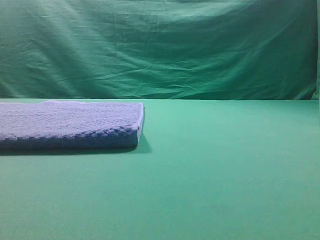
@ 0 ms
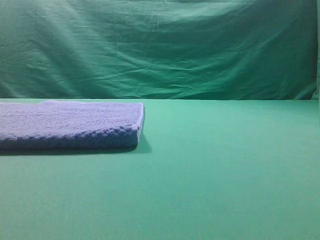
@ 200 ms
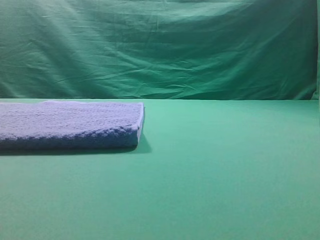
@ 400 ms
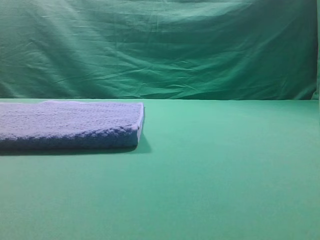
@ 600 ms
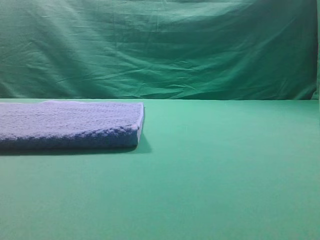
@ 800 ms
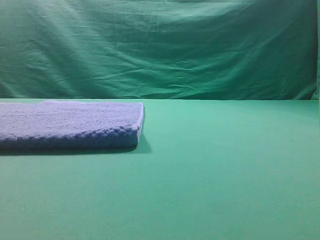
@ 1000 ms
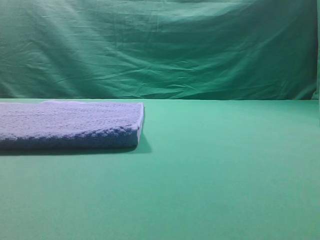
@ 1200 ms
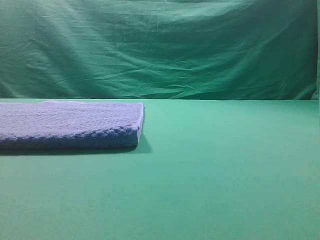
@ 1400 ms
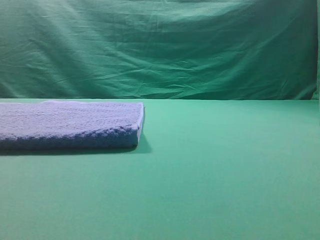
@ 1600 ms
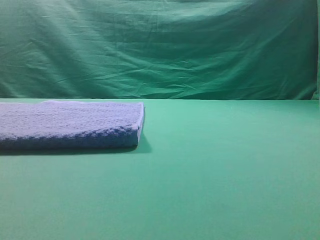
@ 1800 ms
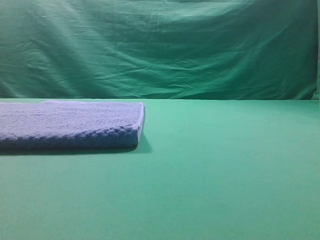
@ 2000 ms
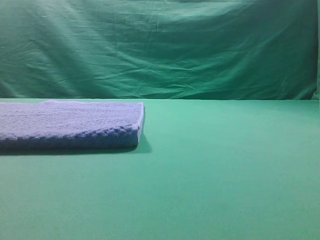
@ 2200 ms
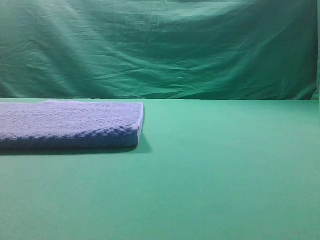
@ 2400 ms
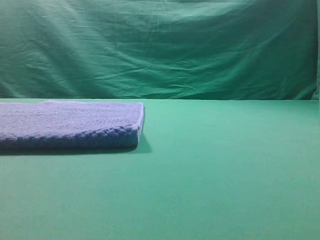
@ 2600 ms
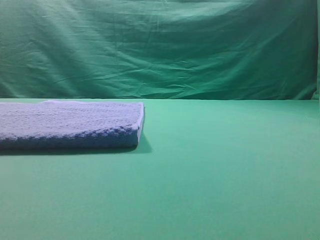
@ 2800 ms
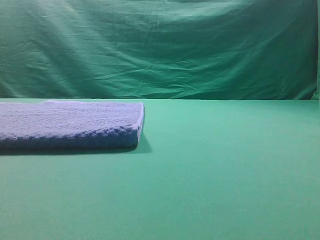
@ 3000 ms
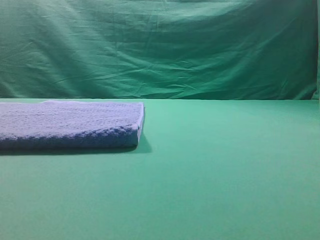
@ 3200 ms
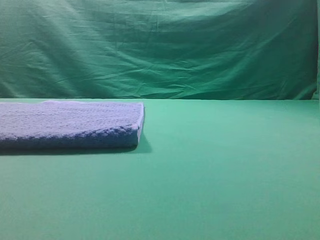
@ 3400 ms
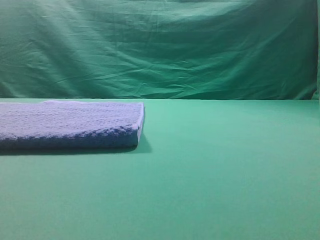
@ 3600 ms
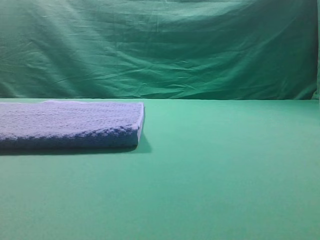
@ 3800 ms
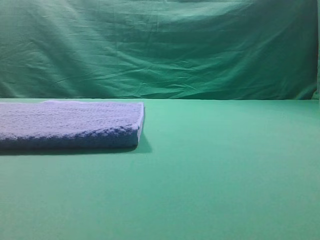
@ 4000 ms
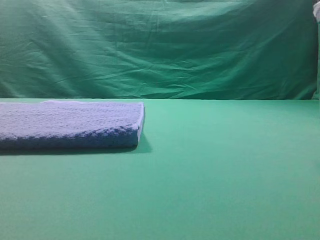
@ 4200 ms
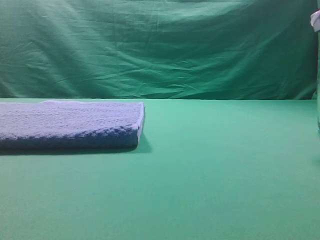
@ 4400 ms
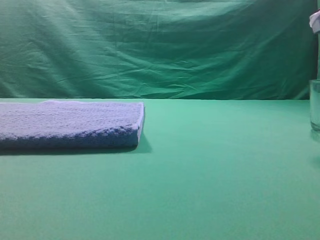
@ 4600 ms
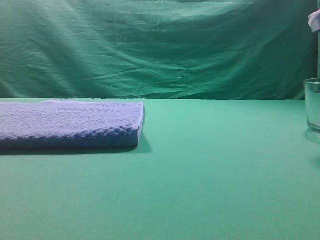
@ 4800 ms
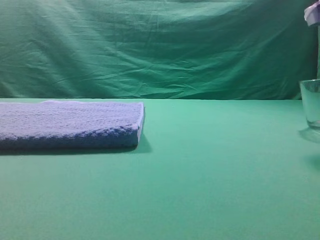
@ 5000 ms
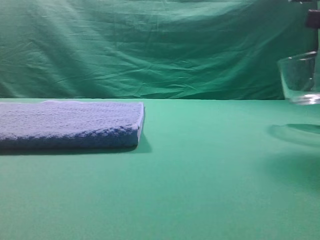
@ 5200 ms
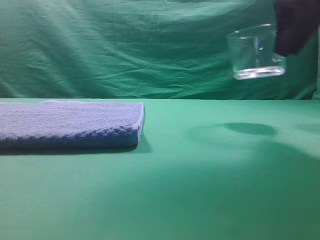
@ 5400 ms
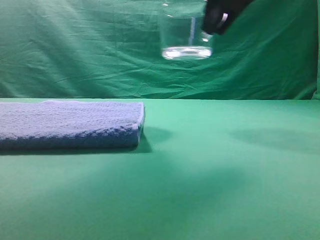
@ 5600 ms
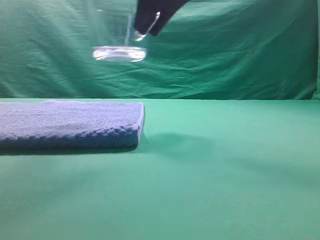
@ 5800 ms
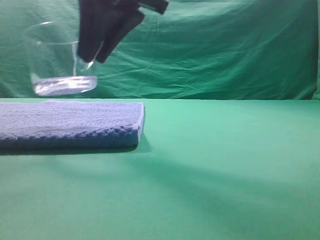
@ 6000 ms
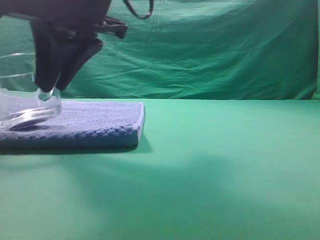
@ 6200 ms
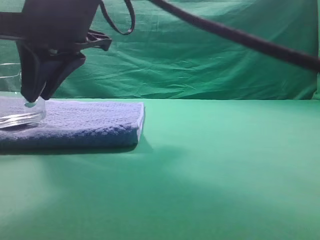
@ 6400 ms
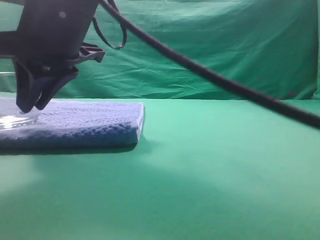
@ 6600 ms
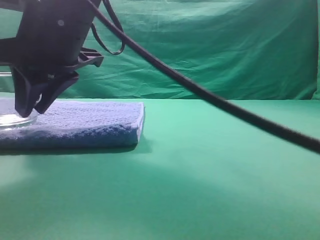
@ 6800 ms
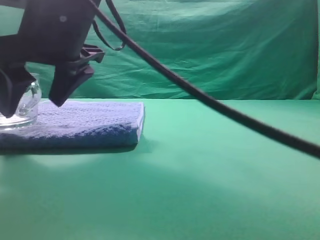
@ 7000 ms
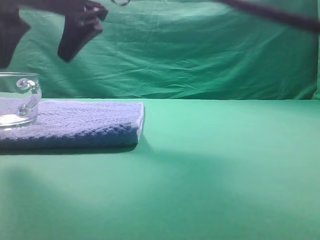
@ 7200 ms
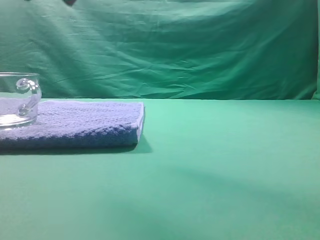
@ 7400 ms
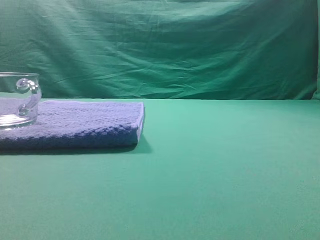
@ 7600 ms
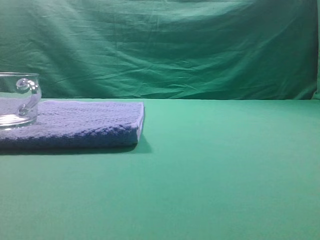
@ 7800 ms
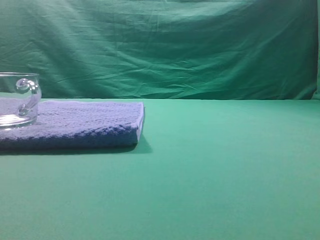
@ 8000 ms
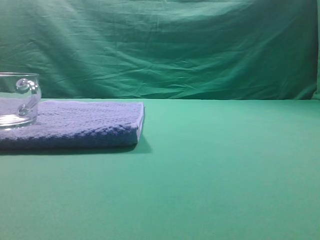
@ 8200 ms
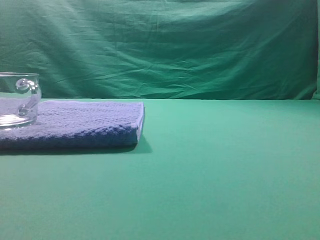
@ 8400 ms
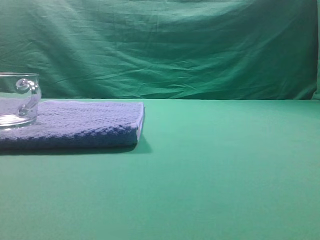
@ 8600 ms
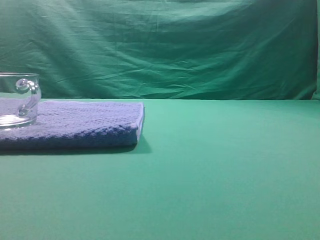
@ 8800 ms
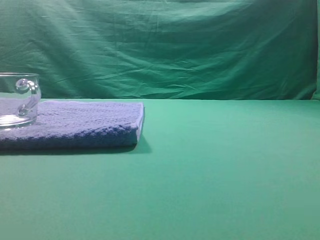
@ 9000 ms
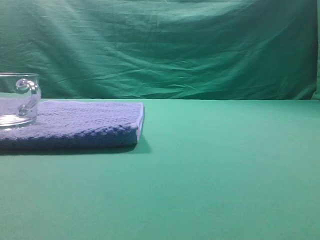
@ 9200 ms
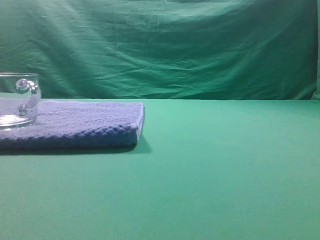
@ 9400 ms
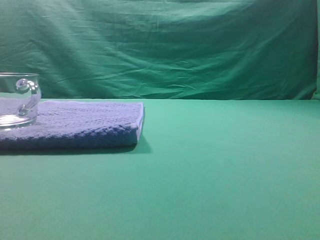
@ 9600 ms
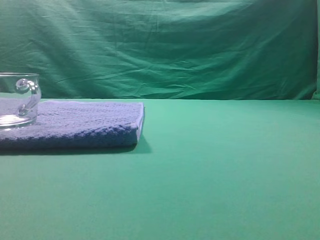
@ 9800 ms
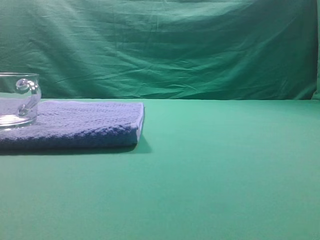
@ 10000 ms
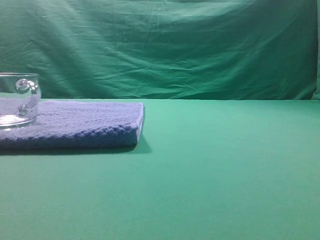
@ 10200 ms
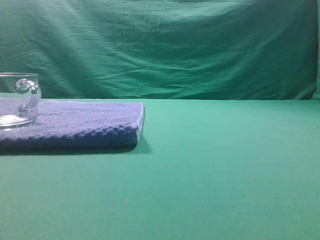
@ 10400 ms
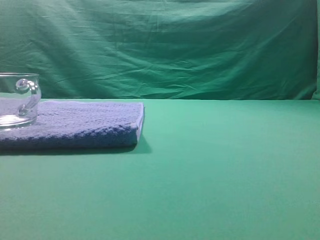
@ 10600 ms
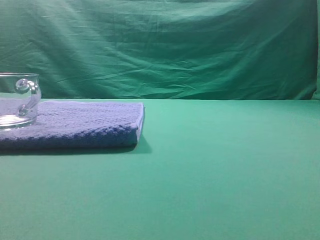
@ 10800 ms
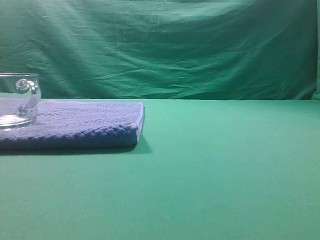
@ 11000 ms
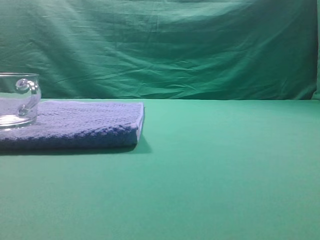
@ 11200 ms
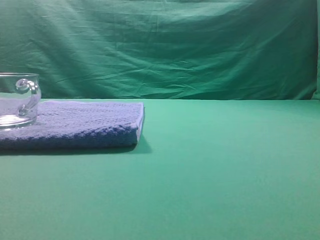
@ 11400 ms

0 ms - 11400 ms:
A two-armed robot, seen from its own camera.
Task of the whole recording: grasp the transparent glass cup and place it within the blue towel.
Step, 4400 ms - 7000 ms: Place the glass cup on the blue zone.

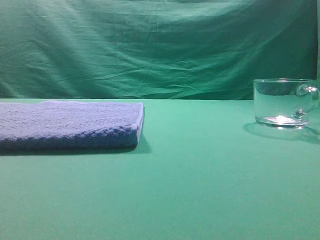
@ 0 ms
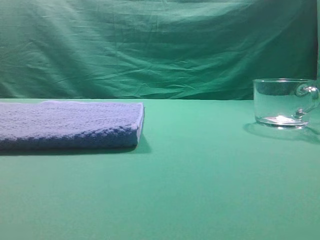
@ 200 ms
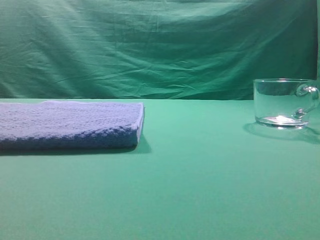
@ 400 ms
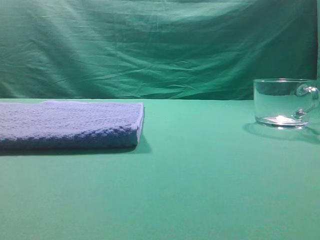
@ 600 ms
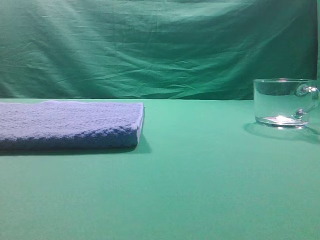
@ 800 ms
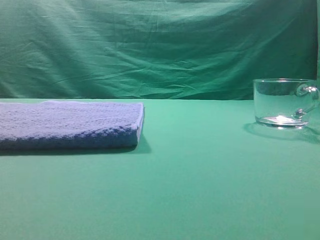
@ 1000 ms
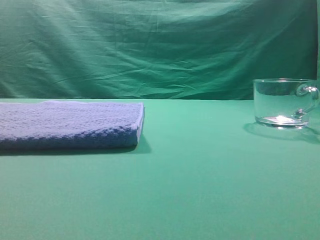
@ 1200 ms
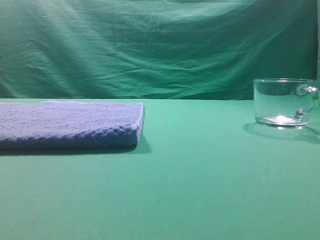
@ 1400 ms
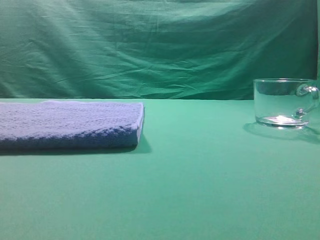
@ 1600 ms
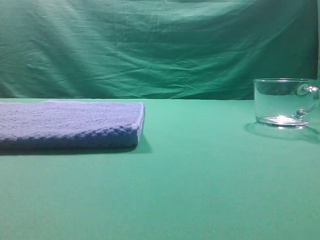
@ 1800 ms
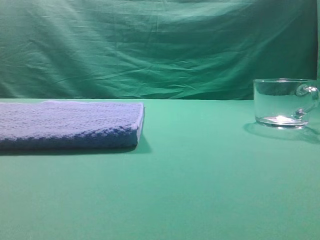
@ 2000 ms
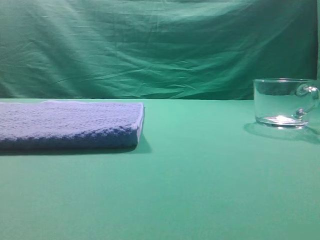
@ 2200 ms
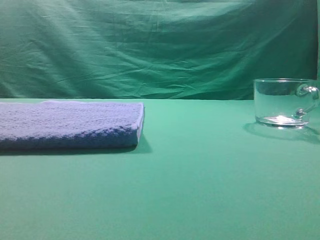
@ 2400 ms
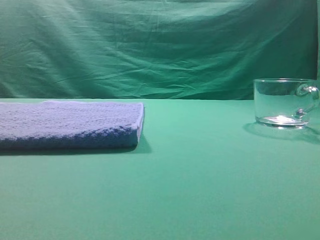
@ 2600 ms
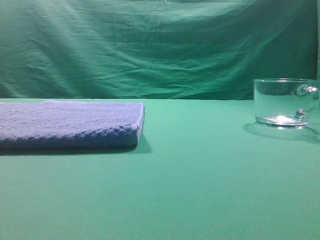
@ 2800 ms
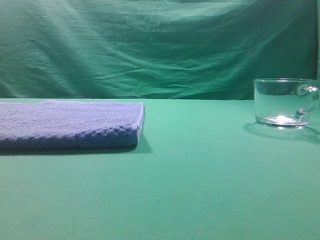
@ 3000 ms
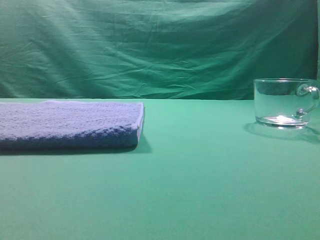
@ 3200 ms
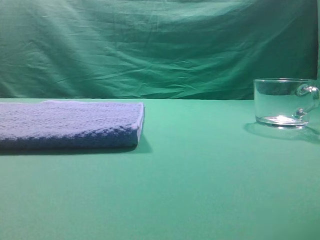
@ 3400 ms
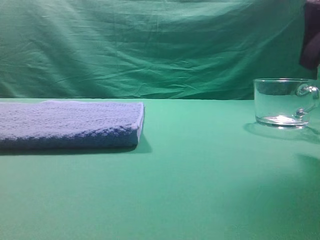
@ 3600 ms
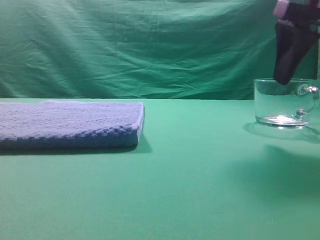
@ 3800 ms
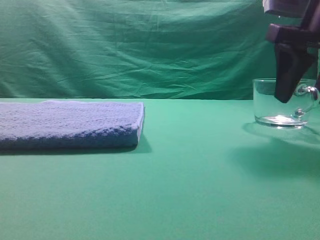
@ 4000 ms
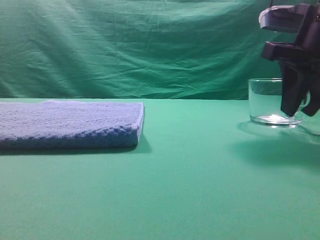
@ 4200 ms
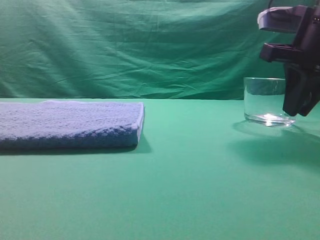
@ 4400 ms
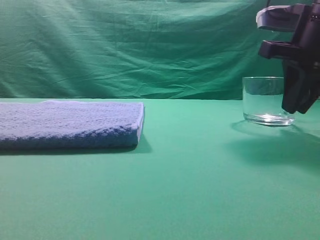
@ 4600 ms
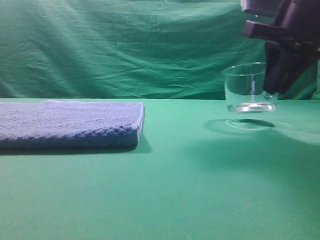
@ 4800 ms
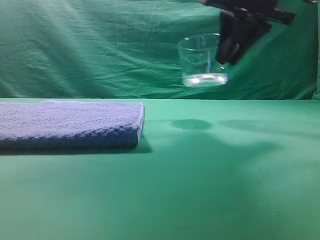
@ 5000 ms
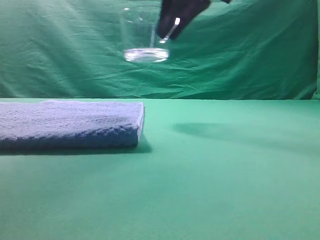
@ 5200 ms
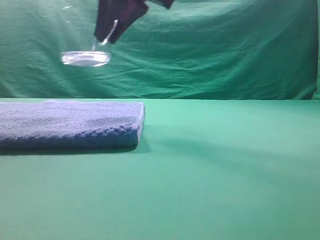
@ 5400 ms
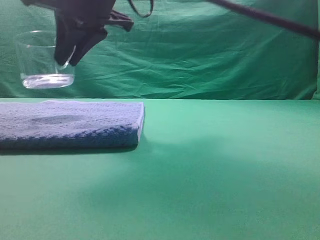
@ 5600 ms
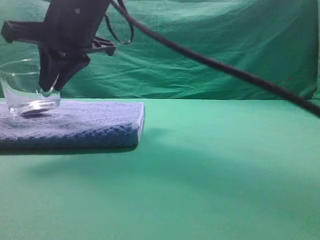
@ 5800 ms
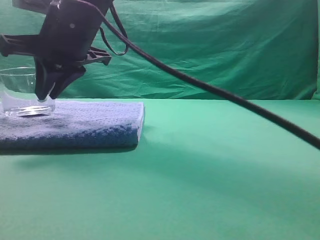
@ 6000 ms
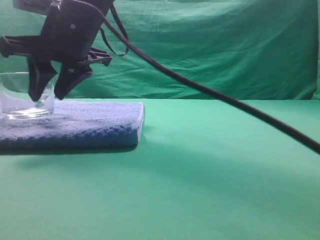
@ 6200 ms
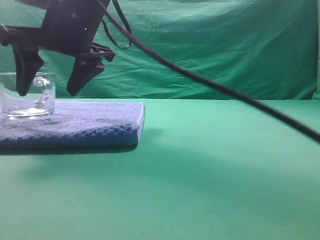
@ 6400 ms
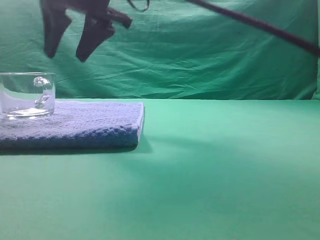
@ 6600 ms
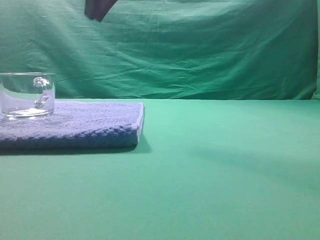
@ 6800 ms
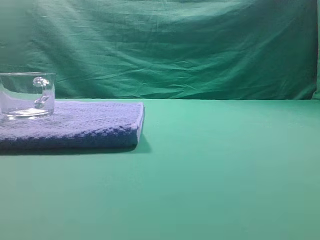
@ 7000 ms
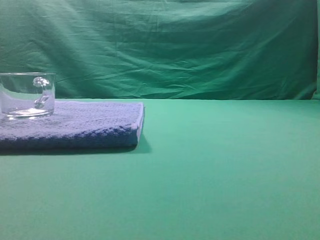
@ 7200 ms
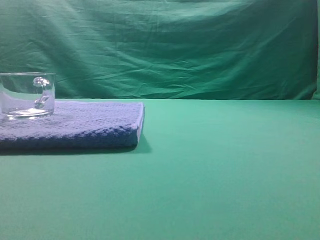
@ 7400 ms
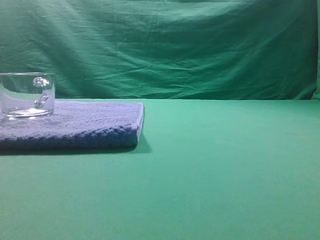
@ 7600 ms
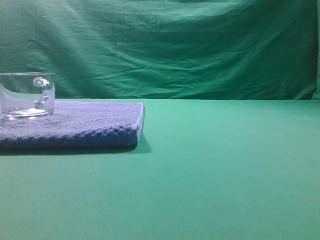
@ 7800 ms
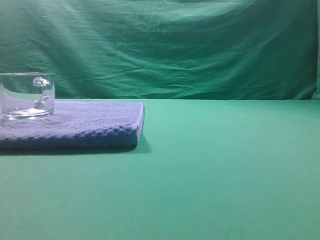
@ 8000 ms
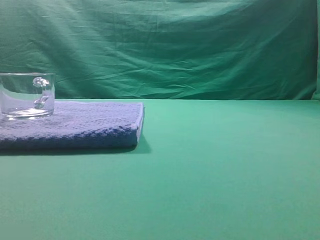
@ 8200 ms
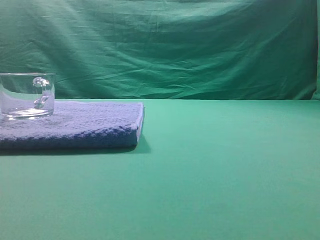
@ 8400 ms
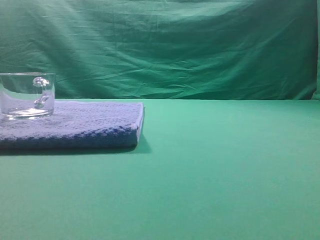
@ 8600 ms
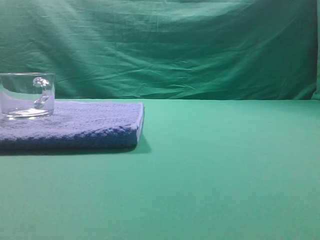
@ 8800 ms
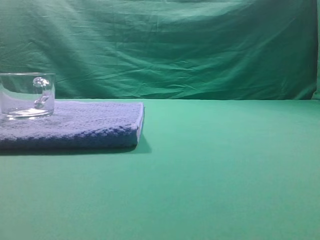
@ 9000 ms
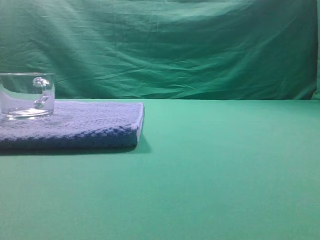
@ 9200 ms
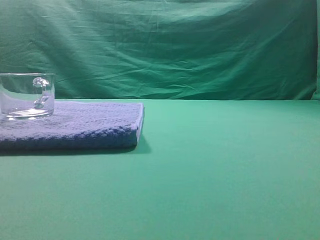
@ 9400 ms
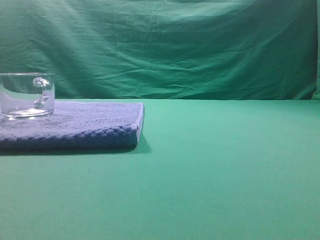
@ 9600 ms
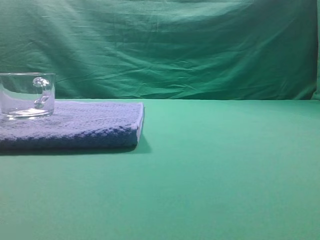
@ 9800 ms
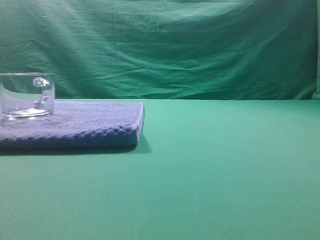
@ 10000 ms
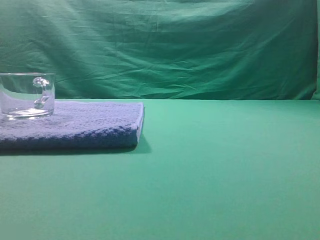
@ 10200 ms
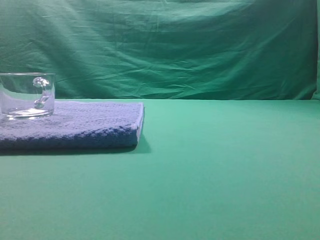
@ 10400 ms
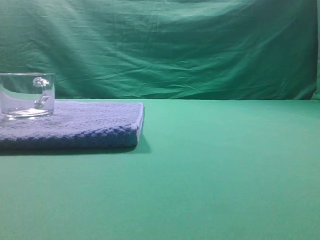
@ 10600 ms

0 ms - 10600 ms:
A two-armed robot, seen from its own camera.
Task of the whole recording: grasp the transparent glass cup and place it within the blue towel.
Step, 0 ms - 4800 ms: Grasp the transparent glass cup.
Step, 5000 ms - 6400 ms: Place the glass cup on the blue zone.
